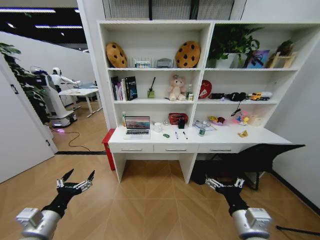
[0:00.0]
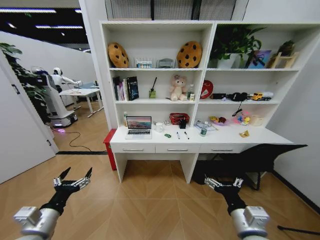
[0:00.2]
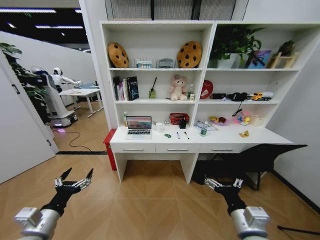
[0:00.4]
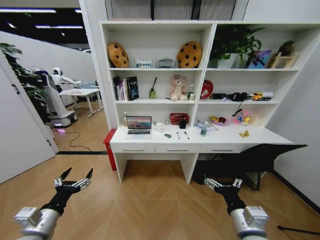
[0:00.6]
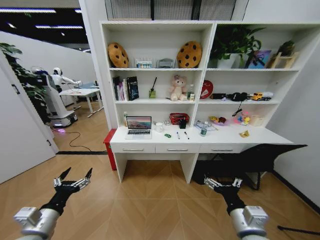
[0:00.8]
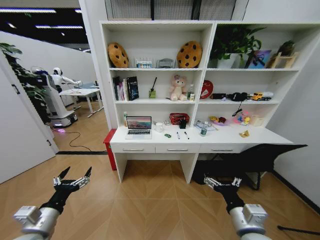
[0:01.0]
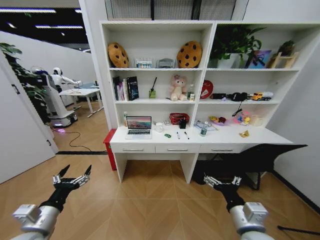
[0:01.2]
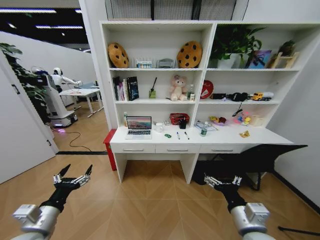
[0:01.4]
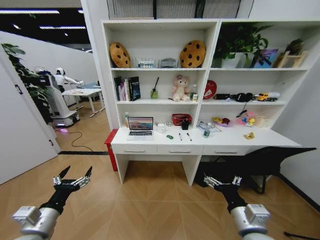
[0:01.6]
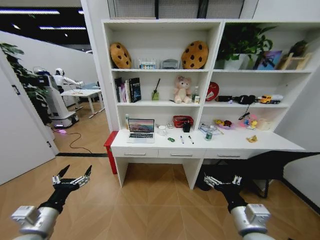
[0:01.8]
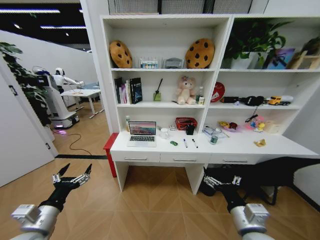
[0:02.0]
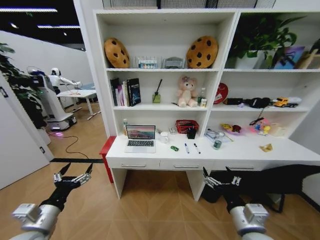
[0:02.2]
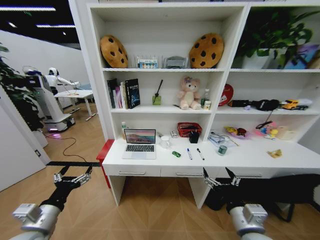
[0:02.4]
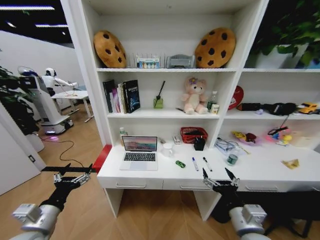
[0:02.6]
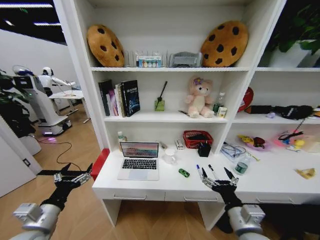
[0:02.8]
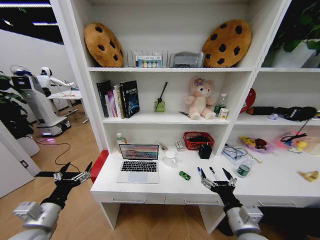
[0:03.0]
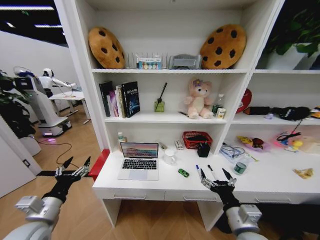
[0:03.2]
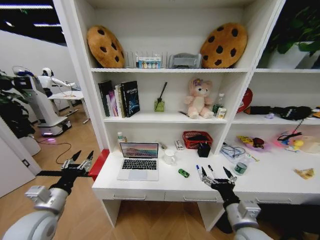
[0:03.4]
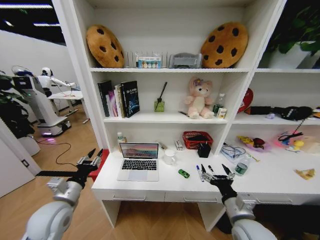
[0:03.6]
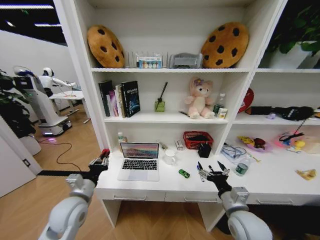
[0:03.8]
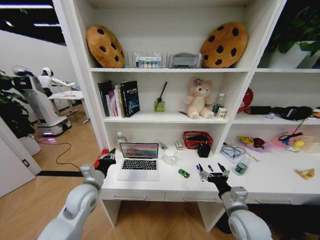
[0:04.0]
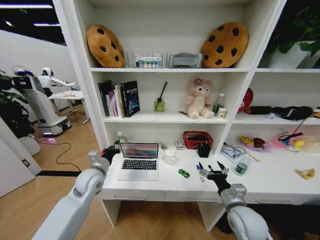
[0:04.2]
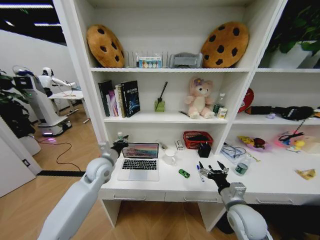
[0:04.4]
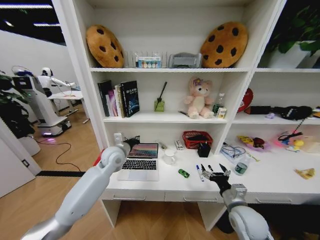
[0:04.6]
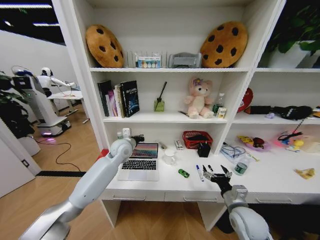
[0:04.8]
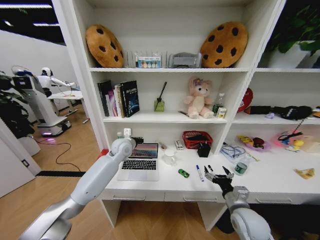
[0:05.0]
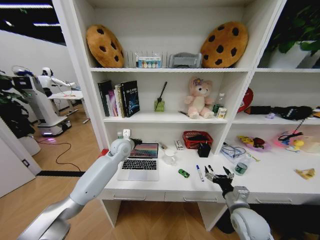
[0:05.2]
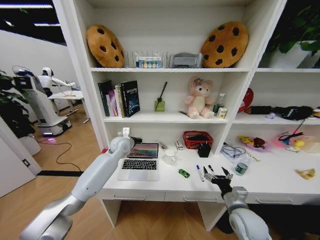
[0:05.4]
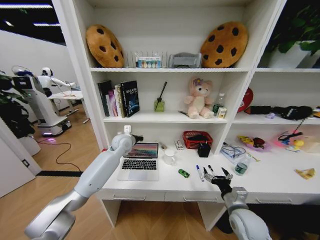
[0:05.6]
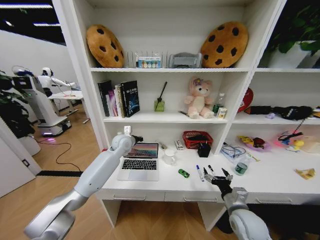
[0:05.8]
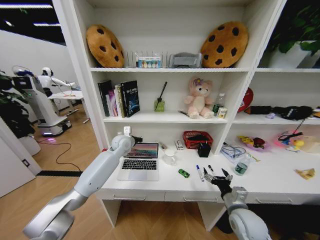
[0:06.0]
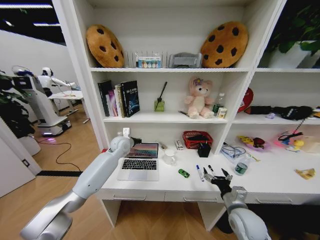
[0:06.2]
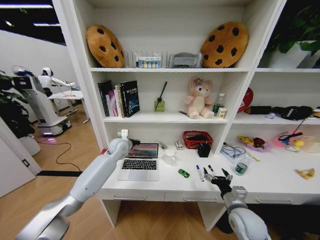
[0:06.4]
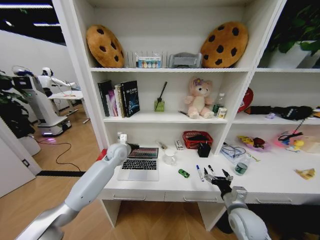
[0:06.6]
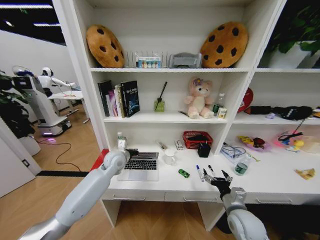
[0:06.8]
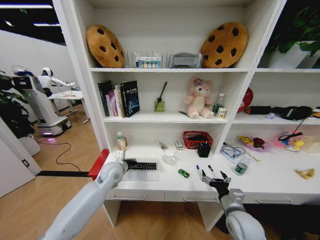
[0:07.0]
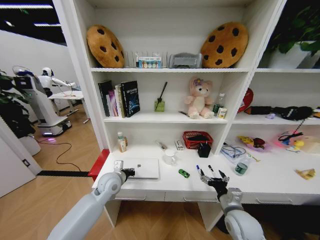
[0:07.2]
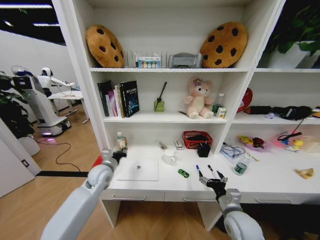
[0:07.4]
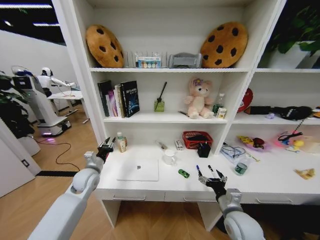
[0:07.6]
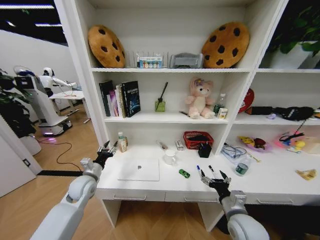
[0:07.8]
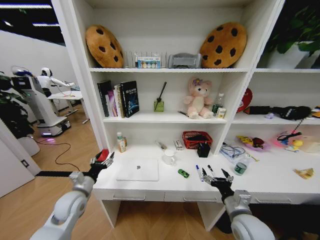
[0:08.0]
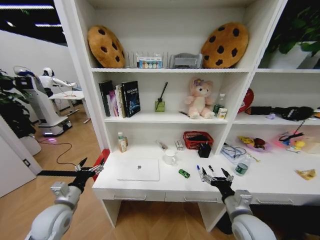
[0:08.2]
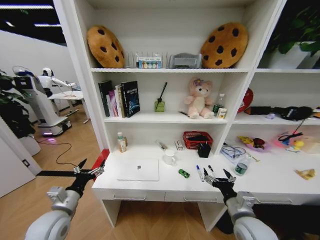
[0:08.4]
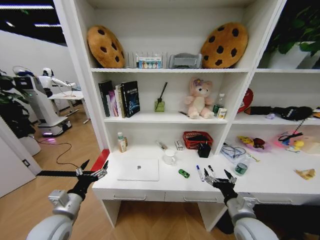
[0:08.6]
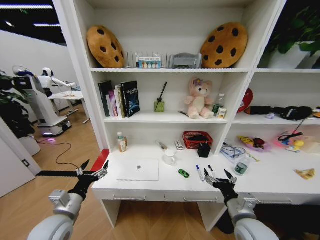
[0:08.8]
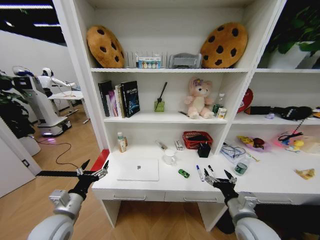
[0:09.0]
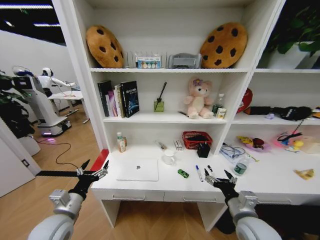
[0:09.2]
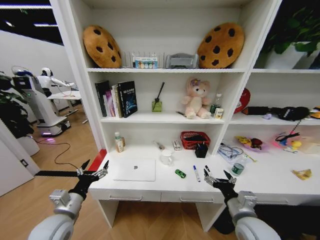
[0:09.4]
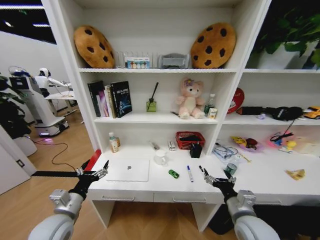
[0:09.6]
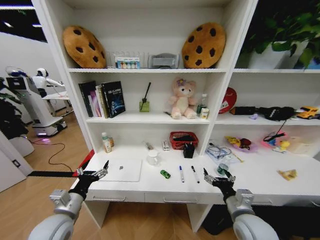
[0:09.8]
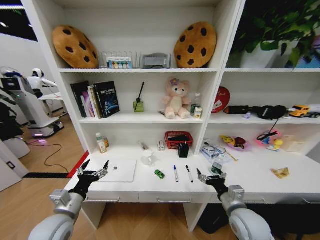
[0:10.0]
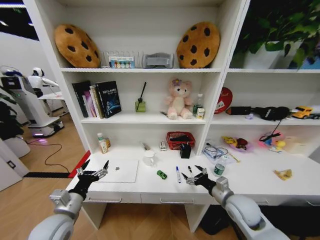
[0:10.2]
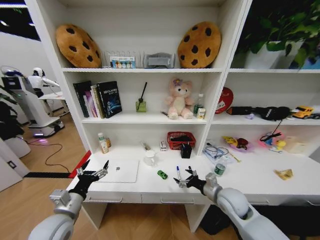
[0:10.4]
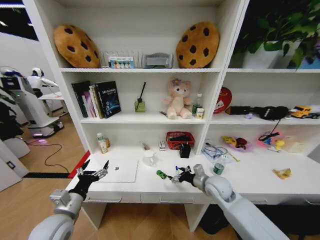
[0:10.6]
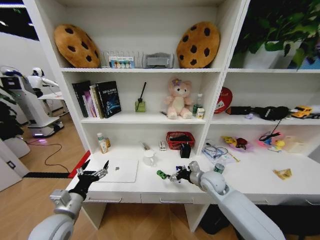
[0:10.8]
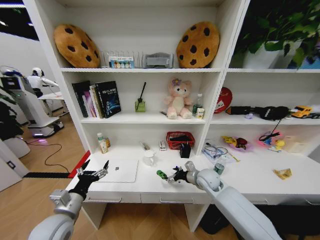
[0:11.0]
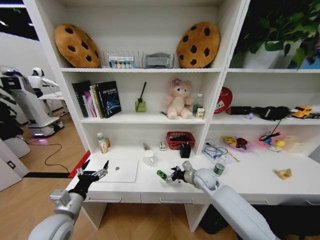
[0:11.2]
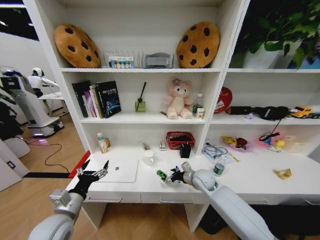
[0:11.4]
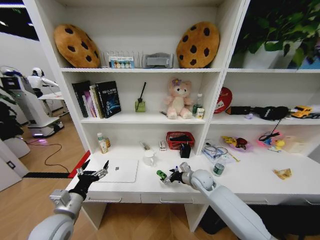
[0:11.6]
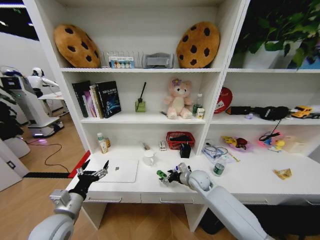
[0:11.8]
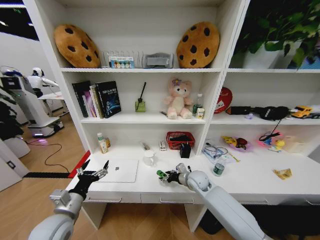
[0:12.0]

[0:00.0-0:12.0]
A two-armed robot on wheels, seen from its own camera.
Task of the whole recording: Organize the objects on the table.
0:03.0 to 0:04.4: The right gripper is displaced forward by some 10 cm. The left gripper travels forward and to the right by some 25 cm, and closes up.
0:04.4 to 0:06.0: The left gripper heads forward and to the right, covering roughly 15 cm.
0:06.0 to 0:07.6: The left gripper travels backward, to the left and downward by roughly 20 cm, and opens up.
0:07.6 to 0:09.0: The right gripper shifts by approximately 5 cm. Meanwhile the left gripper travels backward by some 20 cm, and opens up.
0:09.0 to 0:10.4: The right gripper goes some 10 cm forward.
0:10.4 to 0:12.0: The right gripper is displaced forward and to the left by roughly 15 cm.

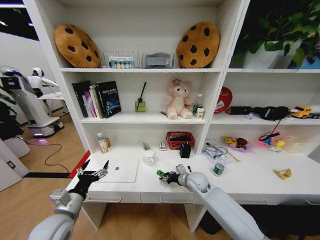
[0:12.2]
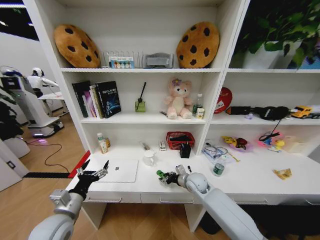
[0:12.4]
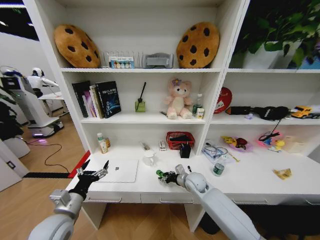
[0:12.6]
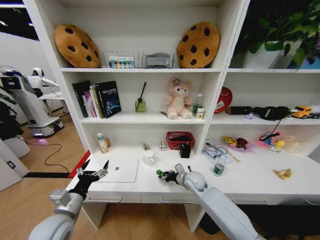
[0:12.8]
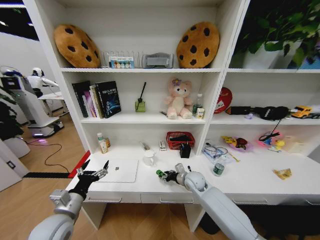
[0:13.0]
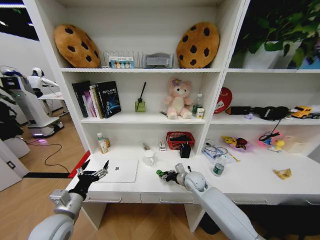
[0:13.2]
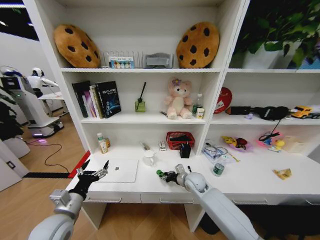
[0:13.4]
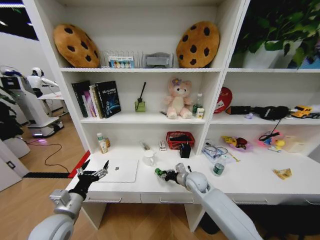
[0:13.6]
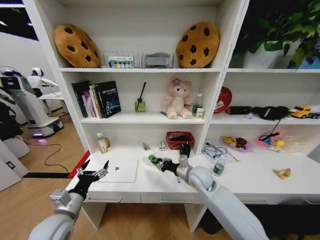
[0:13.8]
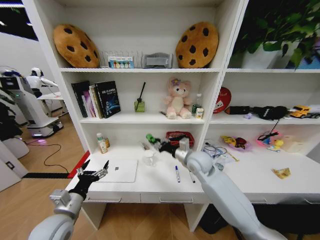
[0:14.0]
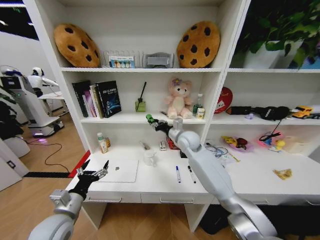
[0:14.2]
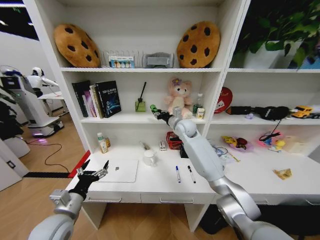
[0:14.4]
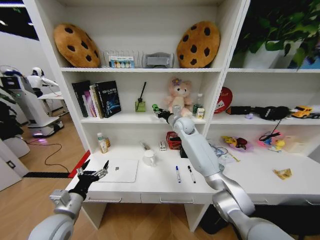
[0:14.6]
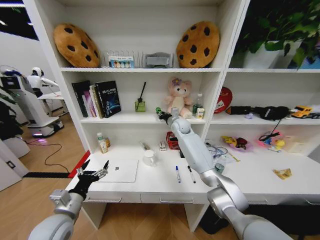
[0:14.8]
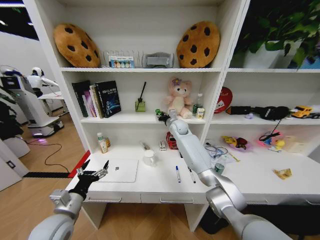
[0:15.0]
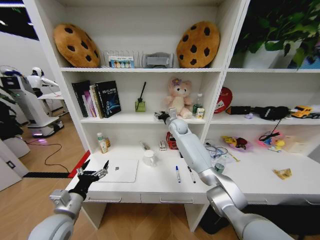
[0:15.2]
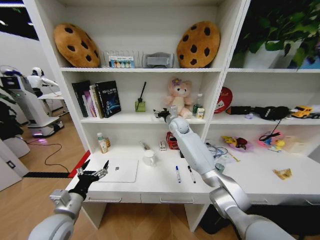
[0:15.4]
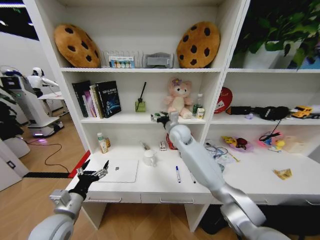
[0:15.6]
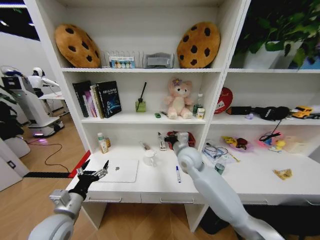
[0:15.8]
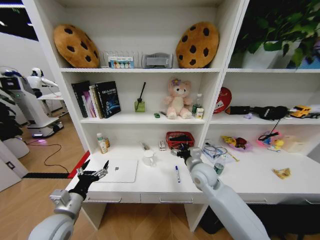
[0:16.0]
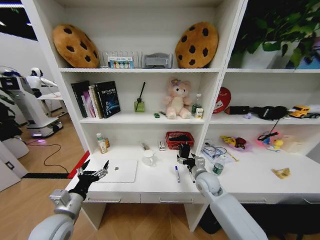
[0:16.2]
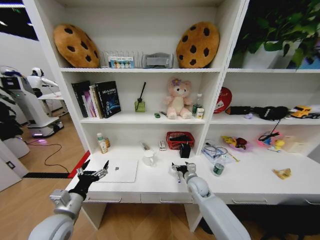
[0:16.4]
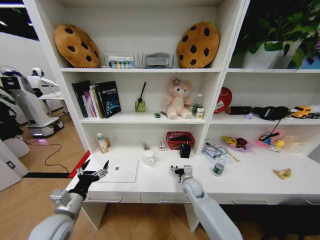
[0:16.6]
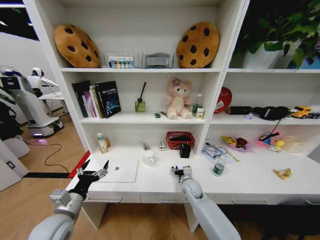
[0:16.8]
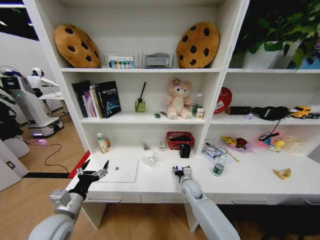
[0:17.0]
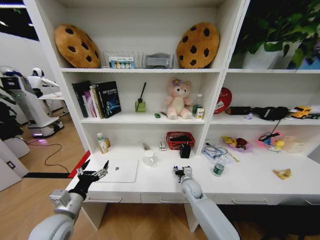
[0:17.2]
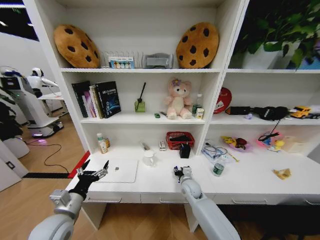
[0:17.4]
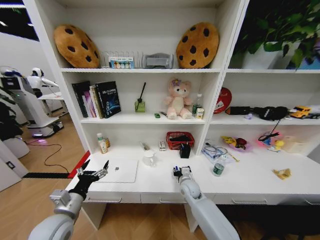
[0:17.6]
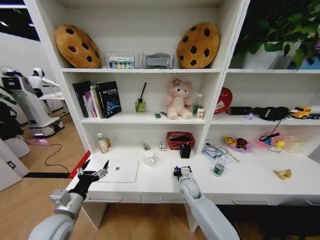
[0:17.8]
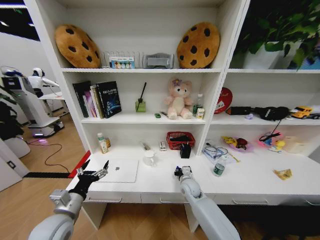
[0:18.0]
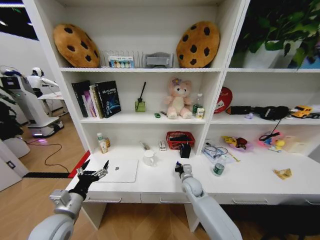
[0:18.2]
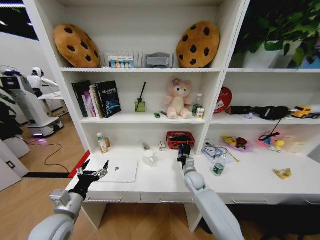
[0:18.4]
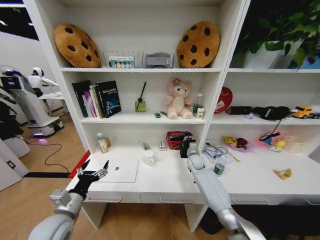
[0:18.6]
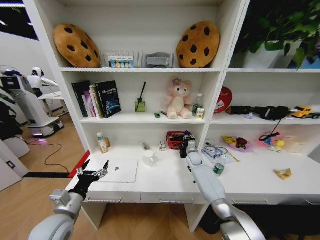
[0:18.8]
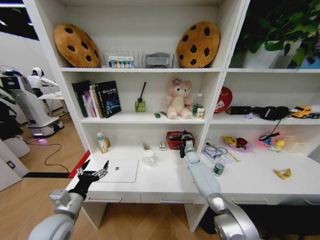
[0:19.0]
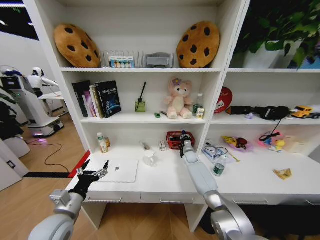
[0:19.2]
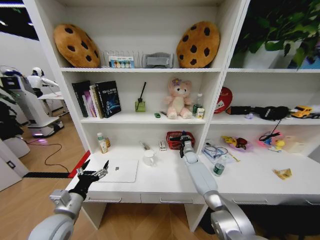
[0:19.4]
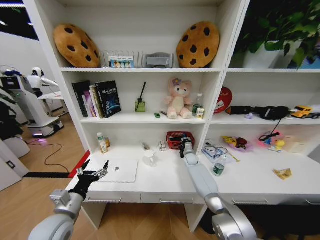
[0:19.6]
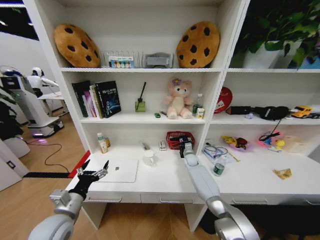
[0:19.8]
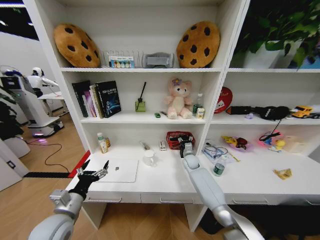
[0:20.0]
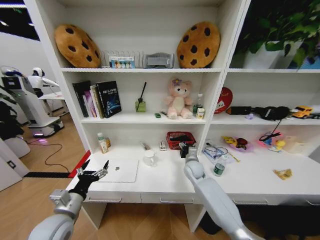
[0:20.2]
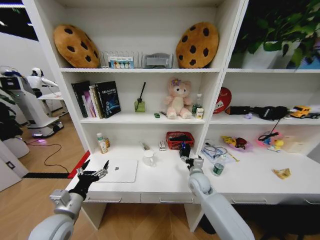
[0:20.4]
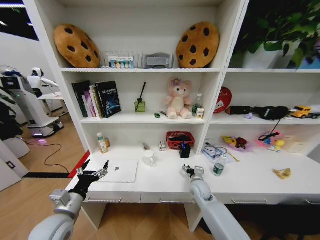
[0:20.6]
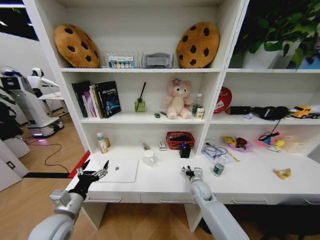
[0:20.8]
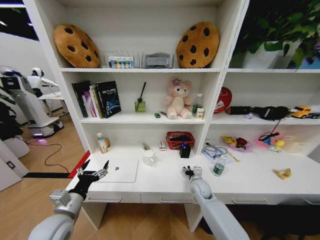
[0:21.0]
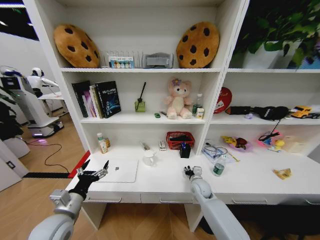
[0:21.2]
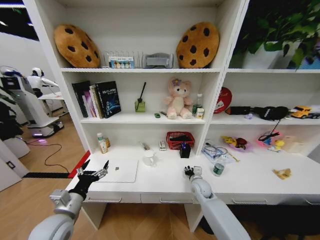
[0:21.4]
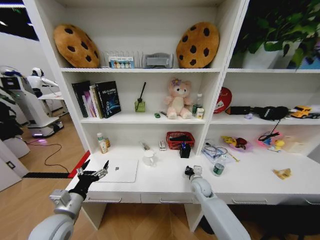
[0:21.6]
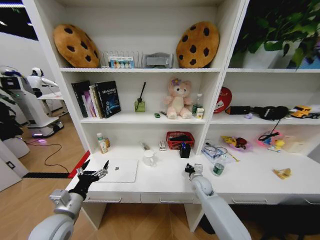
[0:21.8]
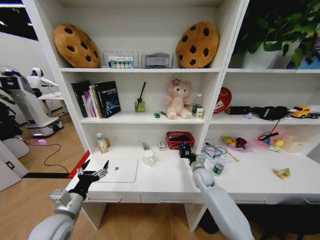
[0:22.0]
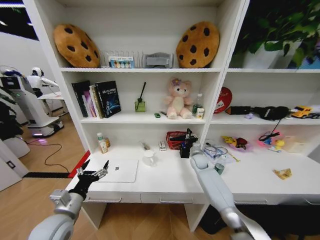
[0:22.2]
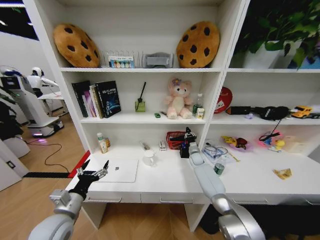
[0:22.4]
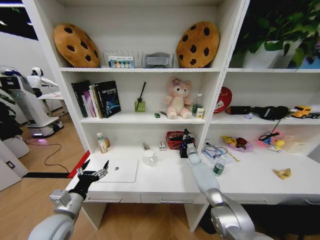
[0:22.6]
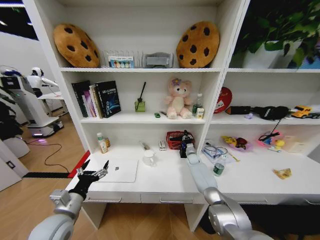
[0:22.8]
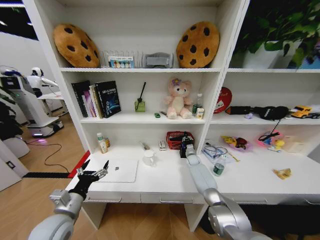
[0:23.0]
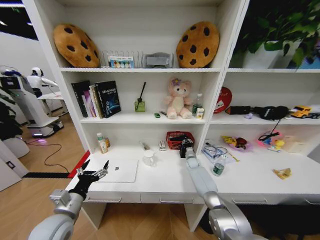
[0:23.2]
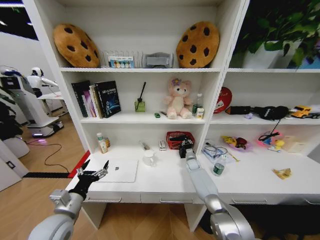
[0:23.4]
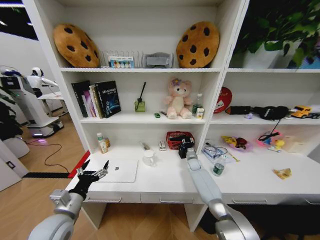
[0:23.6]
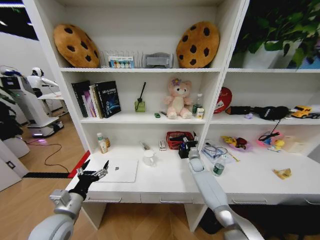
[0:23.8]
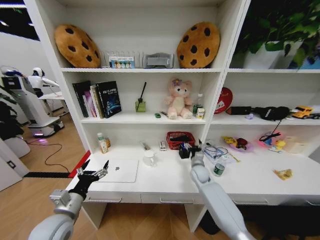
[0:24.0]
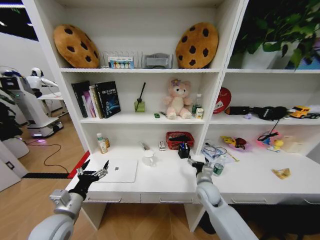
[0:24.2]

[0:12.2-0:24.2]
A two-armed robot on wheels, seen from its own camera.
Task of the whole recording: Organize the objects on the table.
0:12.2 to 0:13.8: The right gripper goes approximately 10 cm upward.
0:13.8 to 0:15.2: The right gripper moves forward and upward, approximately 25 cm.
0:15.2 to 0:16.6: The right gripper travels downward and backward by approximately 30 cm, and opens.
0:16.6 to 0:18.2: The right gripper closes up.
0:18.2 to 0:19.8: The right gripper travels forward by roughly 20 cm.
0:19.8 to 0:21.2: The right gripper heads backward, covering some 20 cm, and opens, then closes once more.
0:21.2 to 0:22.6: The right gripper heads forward, covering roughly 20 cm, and closes.
0:22.6 to 0:24.2: The right gripper shifts approximately 25 cm backward, and opens.
